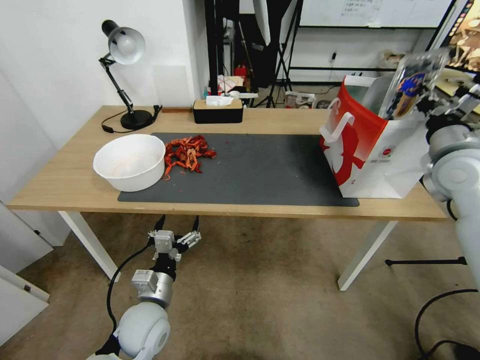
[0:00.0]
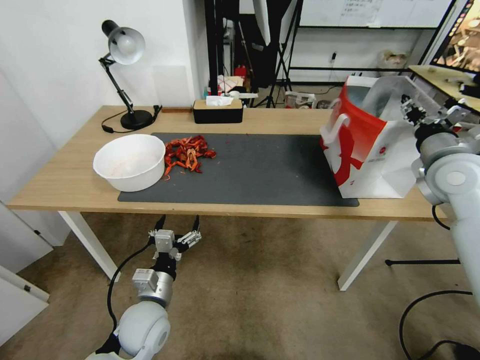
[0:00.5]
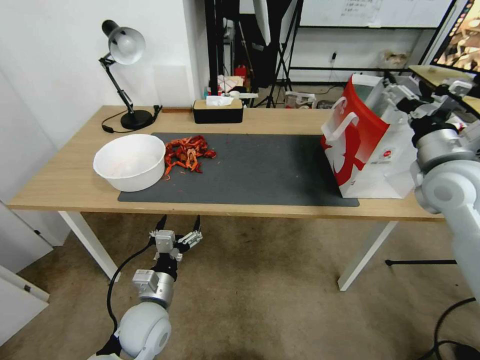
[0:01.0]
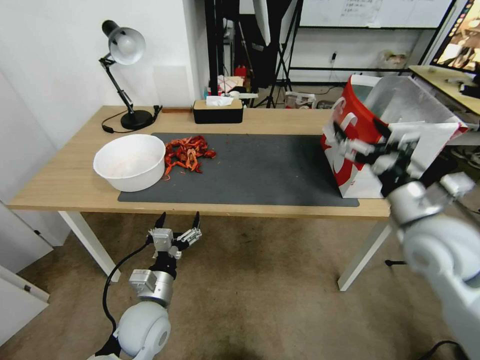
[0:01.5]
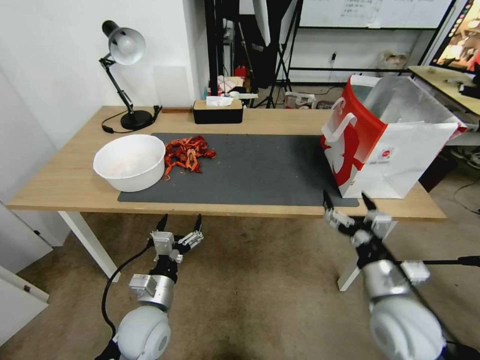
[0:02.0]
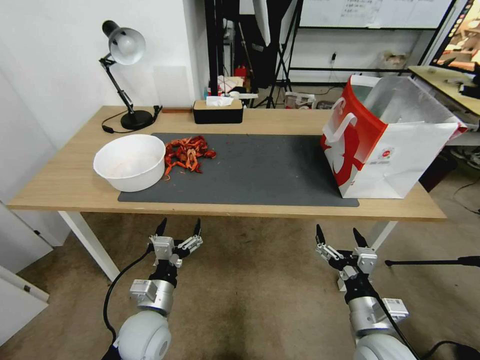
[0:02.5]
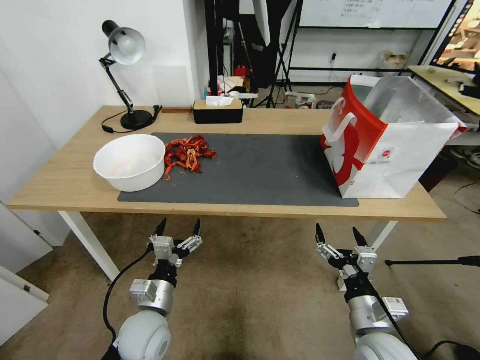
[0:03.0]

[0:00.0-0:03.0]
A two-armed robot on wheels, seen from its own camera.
Task of the whole recording: Close the takeout container lid, then place the container into the takeout bag.
0:00.0 to 0:01.5: The right gripper goes approximately 15 cm backward, to the left and downward, and opens its fingers.
0:01.5 to 0:03.0: The right gripper heads downward and backward, covering some 25 cm.
